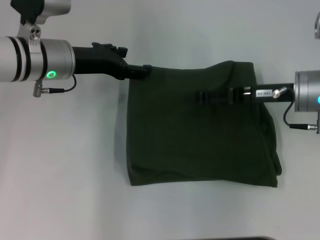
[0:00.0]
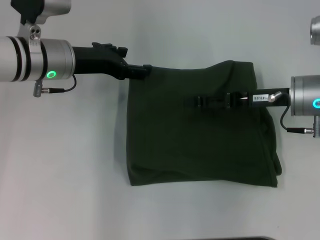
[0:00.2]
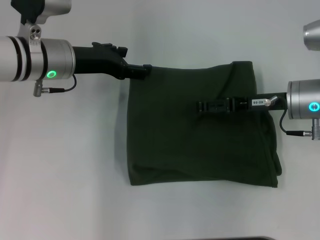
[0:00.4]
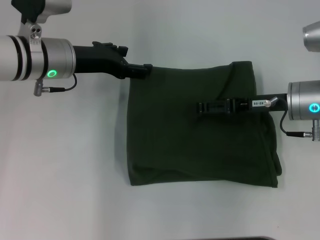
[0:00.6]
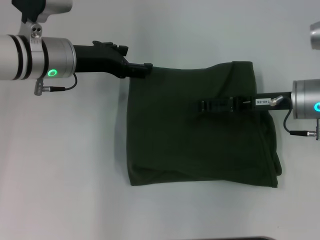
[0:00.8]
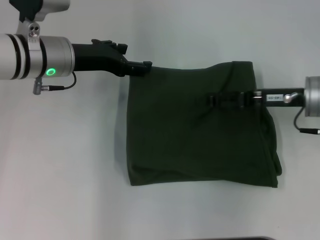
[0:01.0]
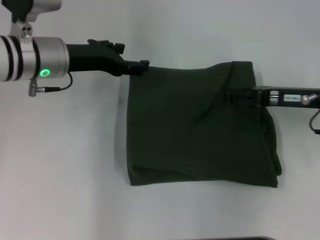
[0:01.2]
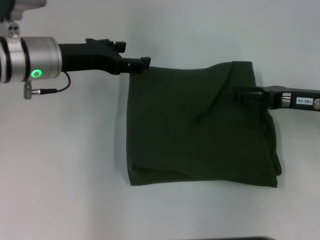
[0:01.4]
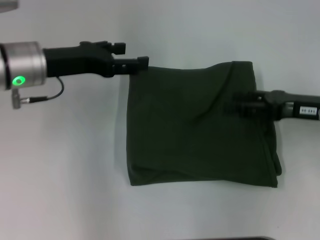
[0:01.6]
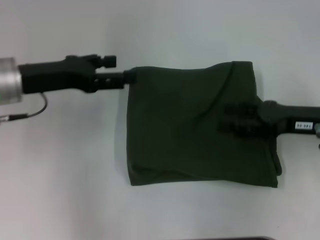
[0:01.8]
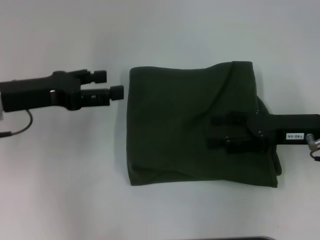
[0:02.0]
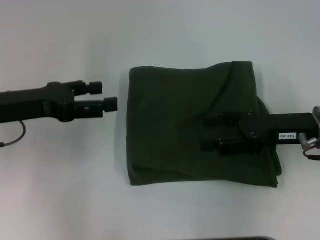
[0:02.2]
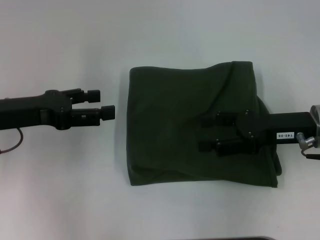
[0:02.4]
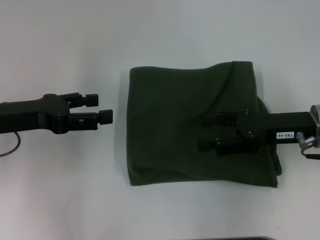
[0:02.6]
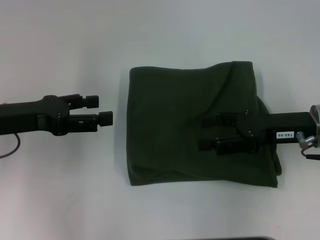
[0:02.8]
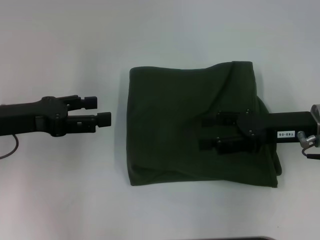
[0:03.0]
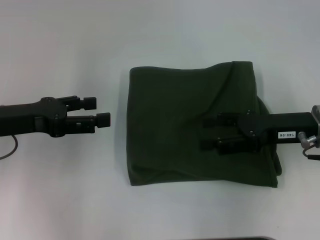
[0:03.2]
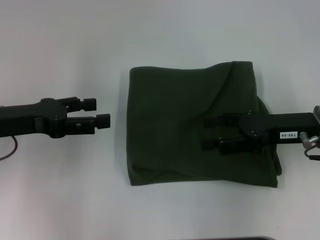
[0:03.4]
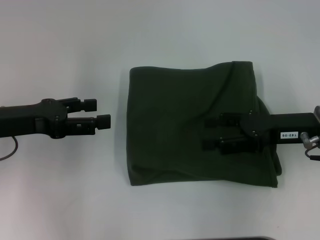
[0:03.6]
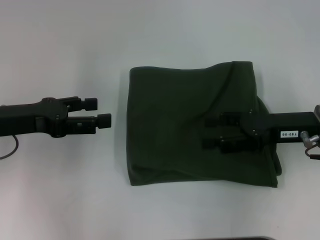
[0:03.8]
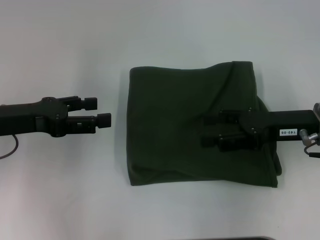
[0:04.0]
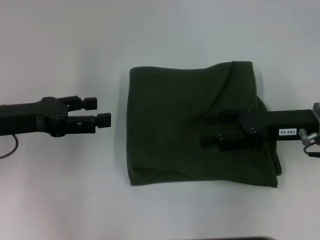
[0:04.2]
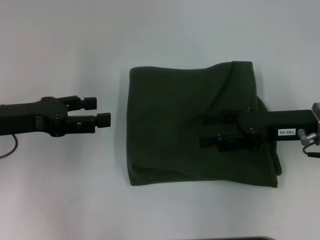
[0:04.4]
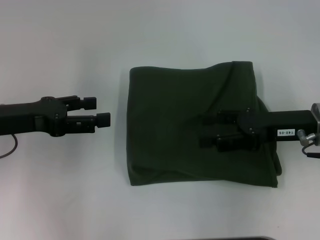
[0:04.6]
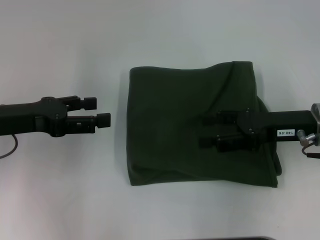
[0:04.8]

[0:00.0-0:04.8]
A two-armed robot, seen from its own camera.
0:00.0 to 0:01.6: The right gripper travels to the right by about 5 cm.
0:01.6 to 0:03.2: The left gripper moves backward and to the left, about 10 cm.
0:03.2 to 0:04.8: The two grippers keep their place.

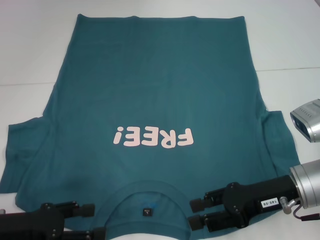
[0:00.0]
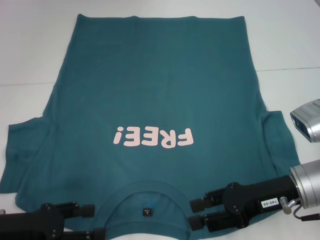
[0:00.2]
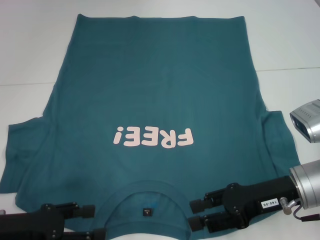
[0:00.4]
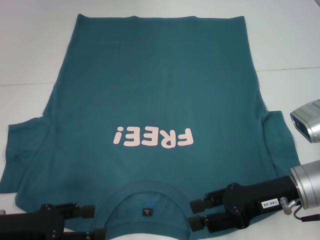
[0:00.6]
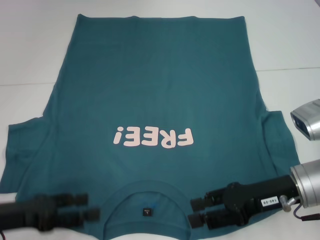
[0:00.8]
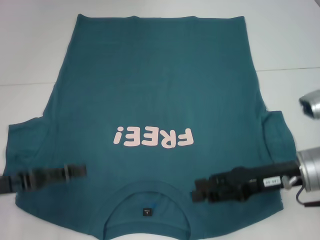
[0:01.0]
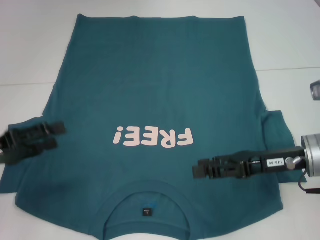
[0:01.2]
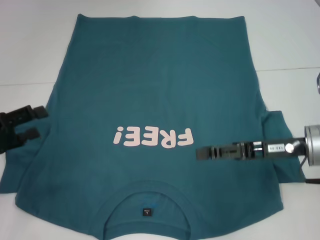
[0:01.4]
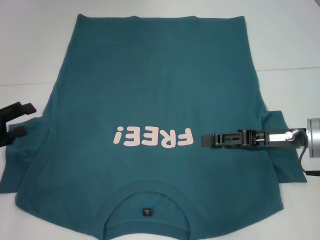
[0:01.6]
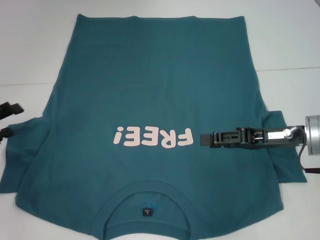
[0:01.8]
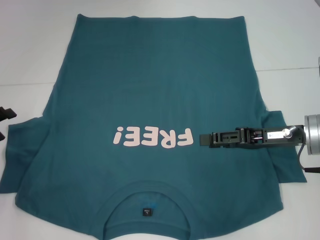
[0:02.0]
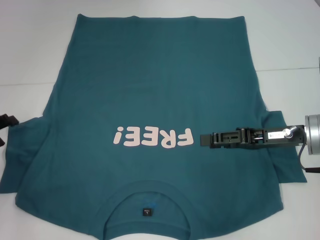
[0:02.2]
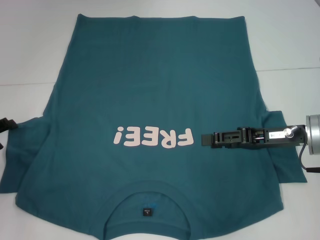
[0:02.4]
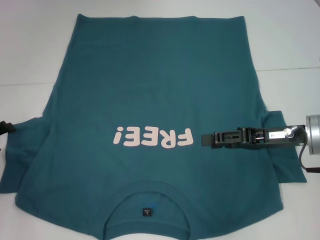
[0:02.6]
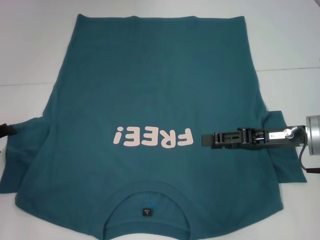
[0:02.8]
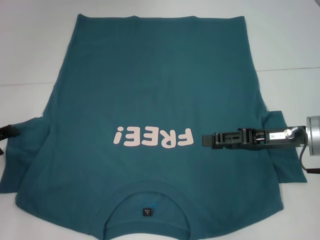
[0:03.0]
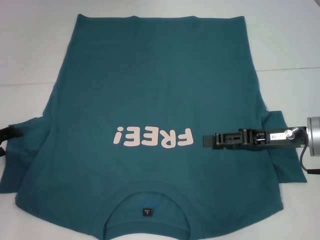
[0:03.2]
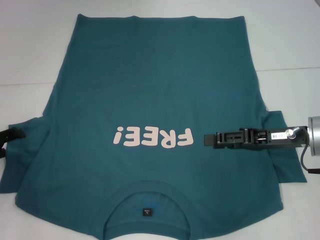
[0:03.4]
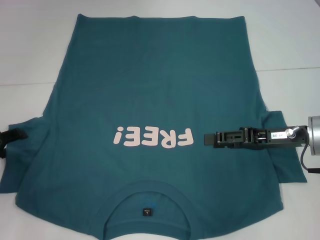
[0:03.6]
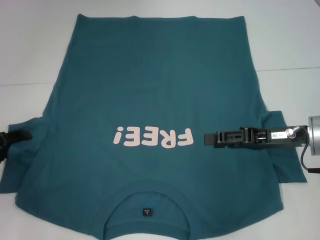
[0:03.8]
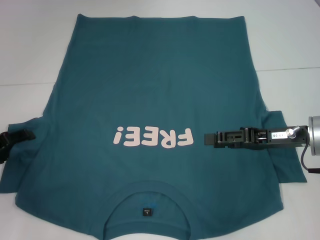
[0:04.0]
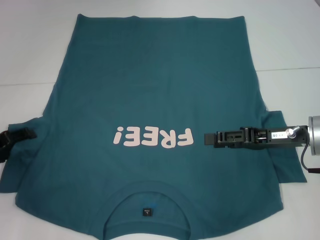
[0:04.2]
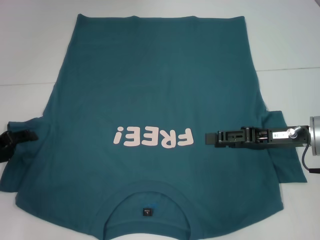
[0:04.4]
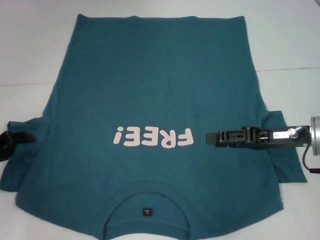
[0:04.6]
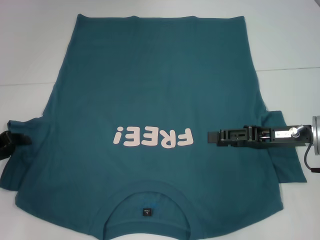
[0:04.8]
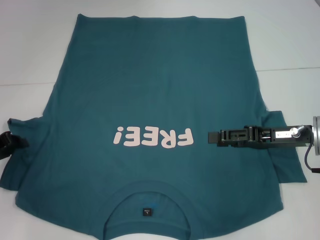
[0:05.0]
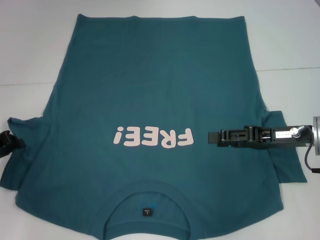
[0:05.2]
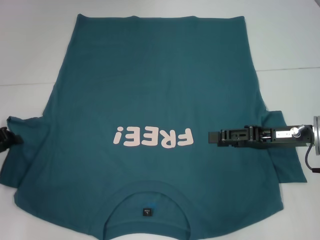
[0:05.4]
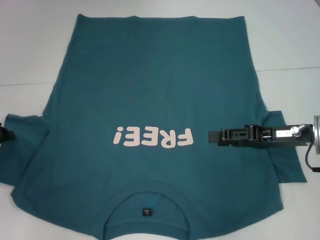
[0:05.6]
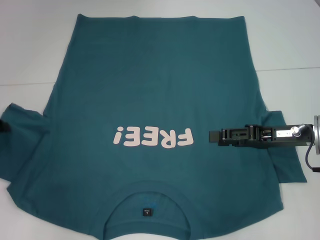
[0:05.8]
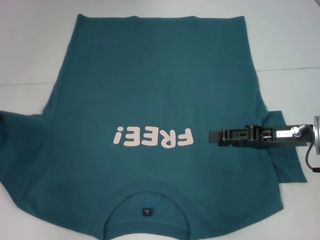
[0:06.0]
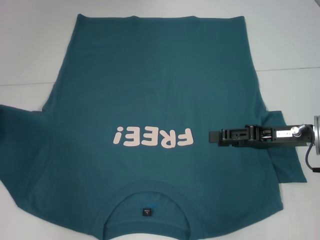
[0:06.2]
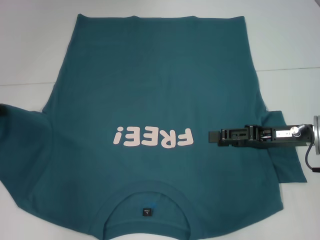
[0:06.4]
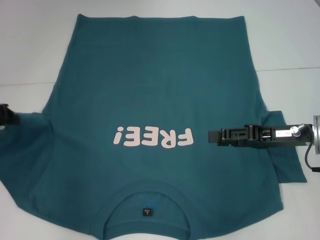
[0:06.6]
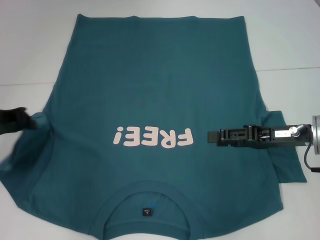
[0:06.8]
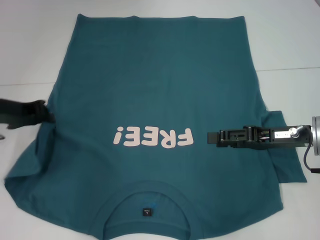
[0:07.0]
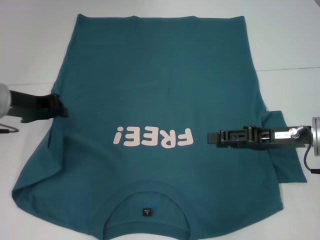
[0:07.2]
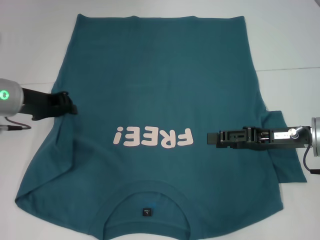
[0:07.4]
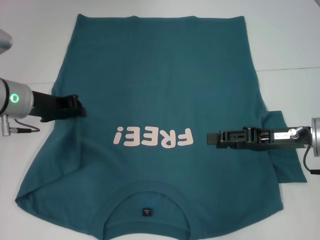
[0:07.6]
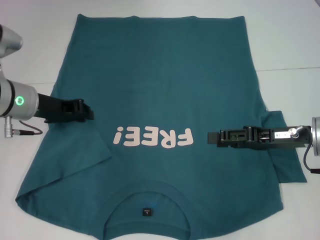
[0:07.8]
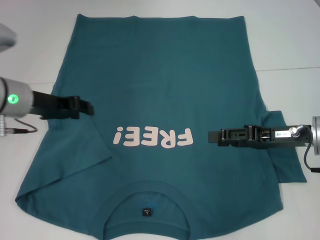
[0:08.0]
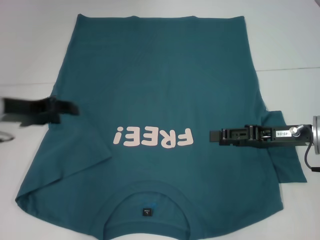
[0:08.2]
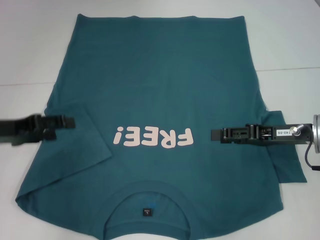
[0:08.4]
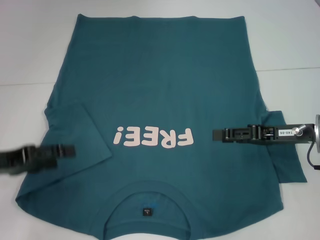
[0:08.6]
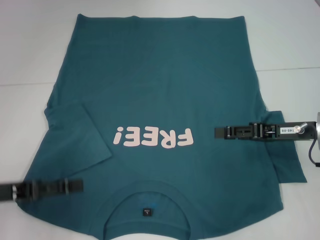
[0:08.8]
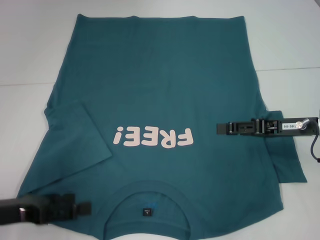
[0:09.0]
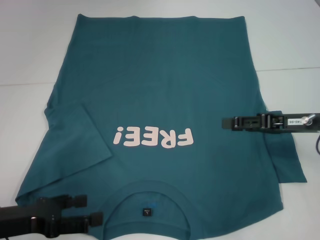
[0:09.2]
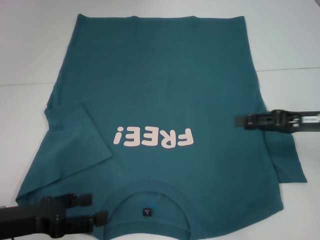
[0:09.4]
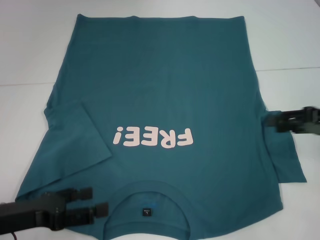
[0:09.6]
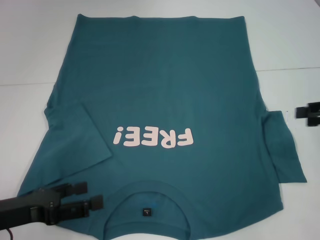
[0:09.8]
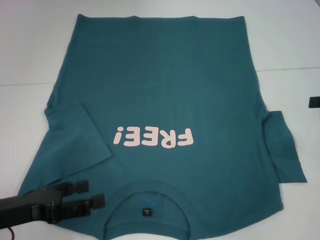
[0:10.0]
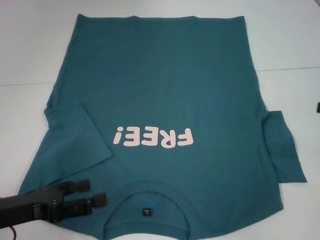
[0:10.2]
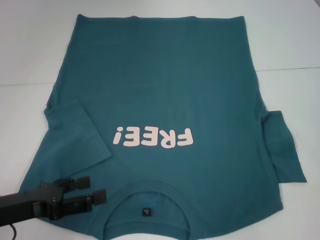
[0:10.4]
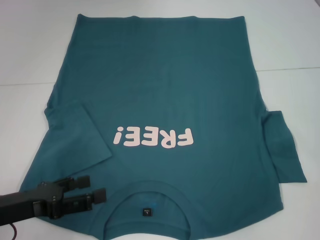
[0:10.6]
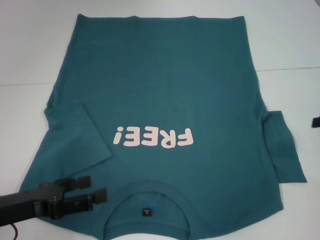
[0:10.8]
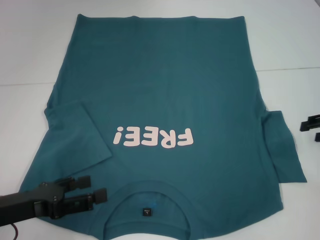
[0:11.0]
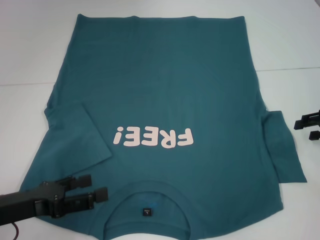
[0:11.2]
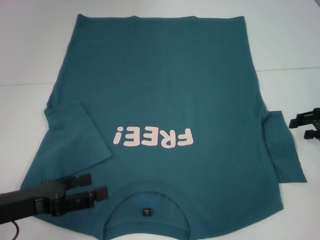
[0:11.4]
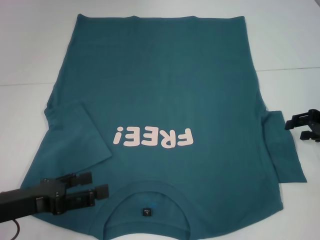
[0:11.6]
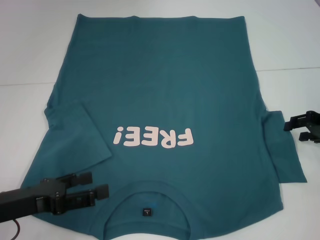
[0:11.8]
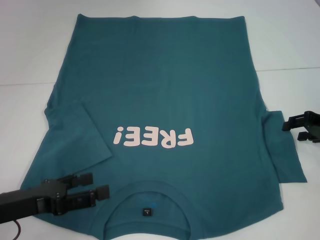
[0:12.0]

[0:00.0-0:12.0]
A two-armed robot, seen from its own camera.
Step, 0:00.0 to 0:08.0: Fold the bottom left sleeve with your left hand.
0:00.0 to 0:01.6: The left gripper goes some 10 cm forward and to the left, while the right gripper changes place by approximately 5 cm.
0:03.0 to 0:04.4: The grippers make only small movements.
0:04.4 to 0:06.0: The left gripper shifts about 5 cm upward, and closes.
0:06.0 to 0:07.6: The left gripper travels to the right by some 10 cm.
0:07.6 to 0:09.0: The left gripper heads backward and to the left, covering roughly 15 cm, and opens.
0:09.0 to 0:10.4: The right gripper shifts some 15 cm to the right.
0:10.4 to 0:12.0: The right gripper heads downward and to the left, covering approximately 10 cm.

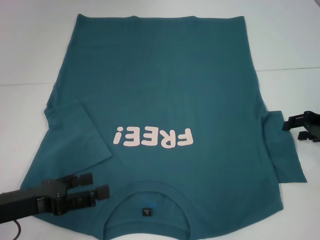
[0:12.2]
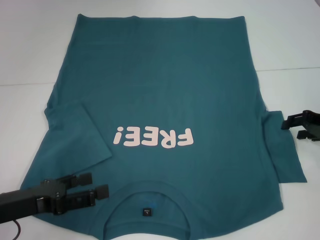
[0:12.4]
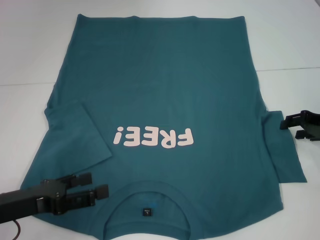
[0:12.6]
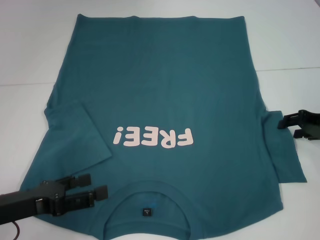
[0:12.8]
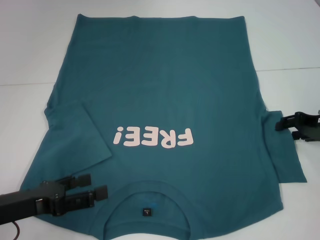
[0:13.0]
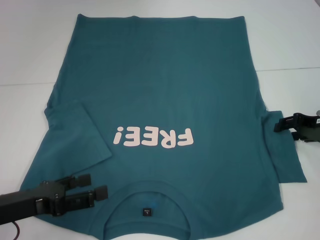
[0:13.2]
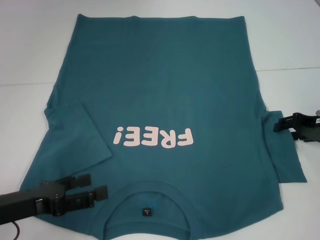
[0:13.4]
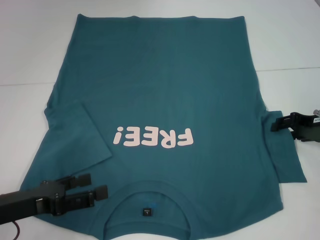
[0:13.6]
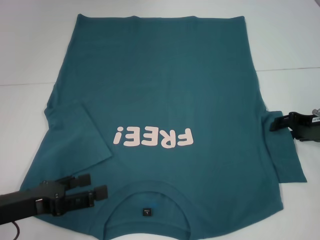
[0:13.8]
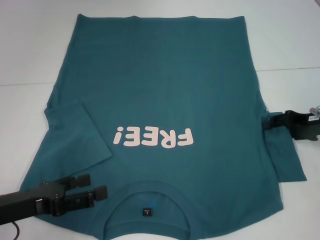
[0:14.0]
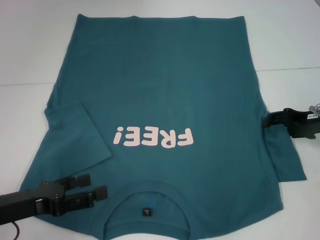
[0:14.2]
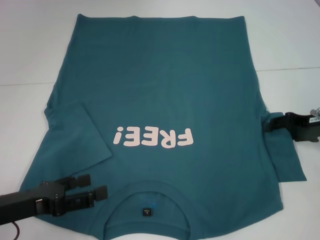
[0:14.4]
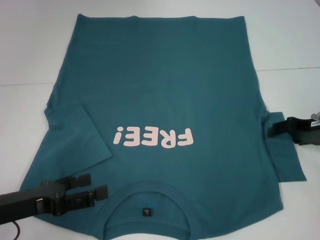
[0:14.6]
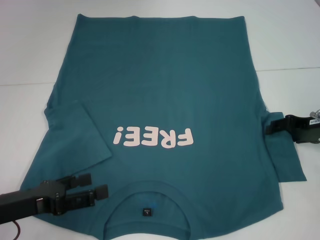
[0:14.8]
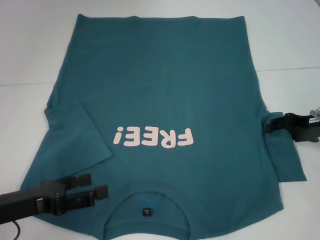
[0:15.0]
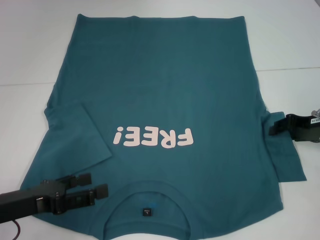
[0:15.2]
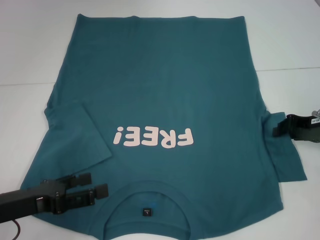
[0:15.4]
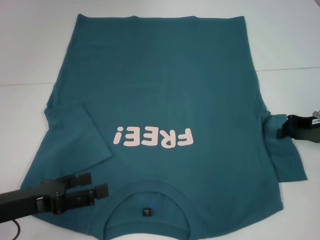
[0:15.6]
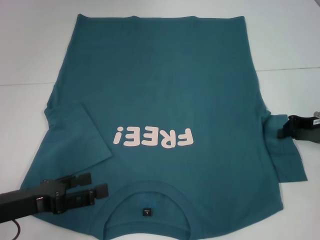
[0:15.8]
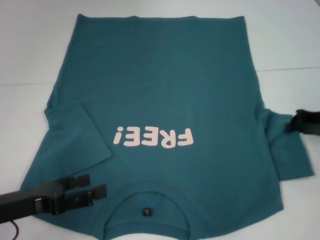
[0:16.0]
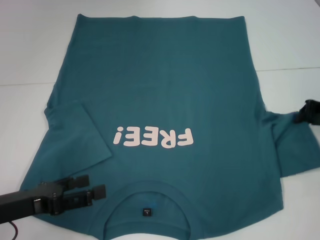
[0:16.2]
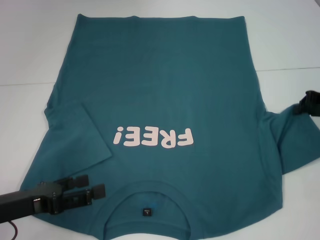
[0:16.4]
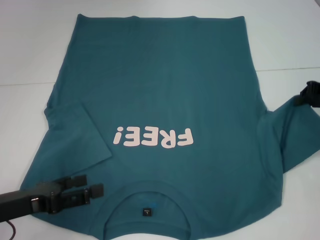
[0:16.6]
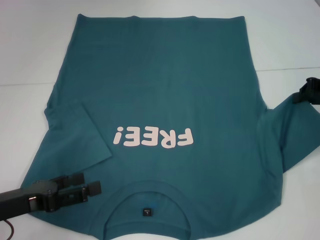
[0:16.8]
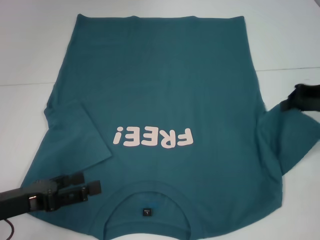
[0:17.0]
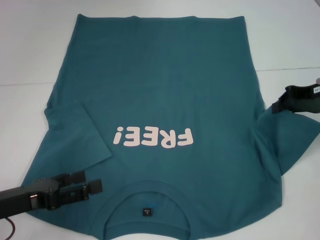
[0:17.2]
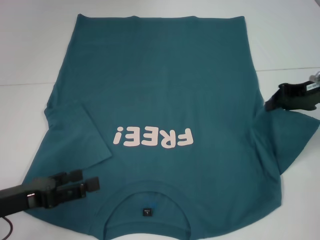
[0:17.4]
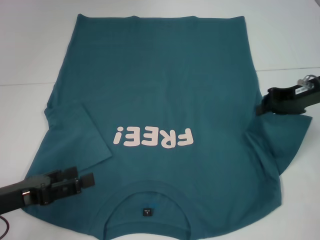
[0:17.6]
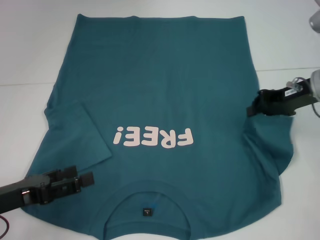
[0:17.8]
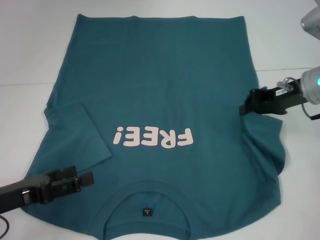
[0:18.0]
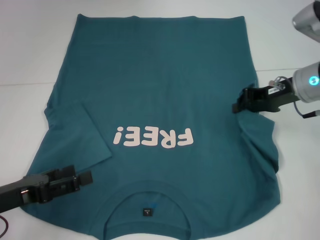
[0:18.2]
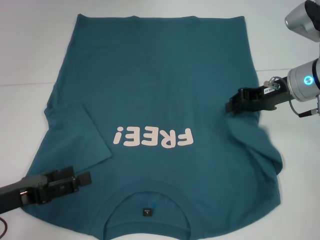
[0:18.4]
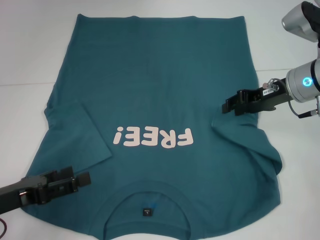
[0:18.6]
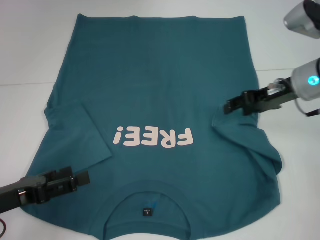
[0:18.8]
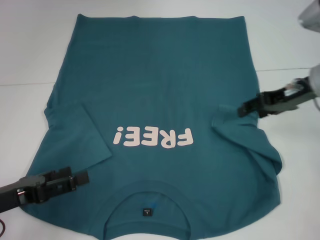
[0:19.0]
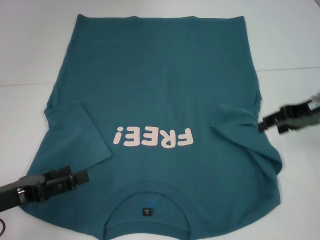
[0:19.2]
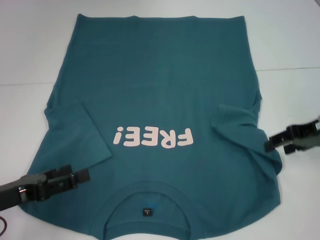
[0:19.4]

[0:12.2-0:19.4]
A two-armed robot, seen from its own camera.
0:12.2 to 0:13.6: The grippers make only small movements.
0:13.6 to 0:15.0: Neither gripper changes place.
0:15.0 to 0:16.6: The right gripper shifts approximately 5 cm upward, and closes.
0:16.6 to 0:18.0: The right gripper heads to the left, covering some 10 cm.
0:18.0 to 0:19.4: The right gripper moves roughly 5 cm, and opens up.
